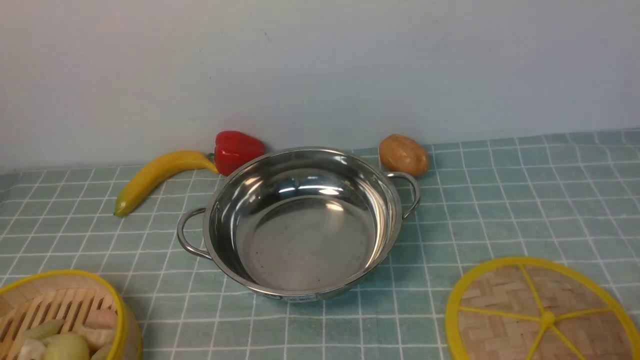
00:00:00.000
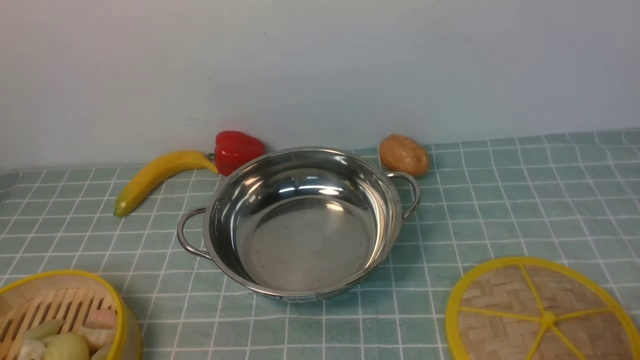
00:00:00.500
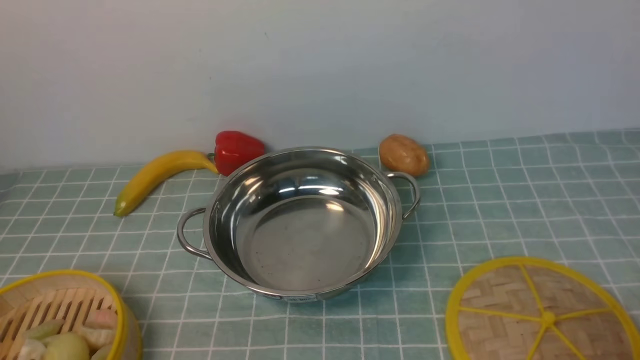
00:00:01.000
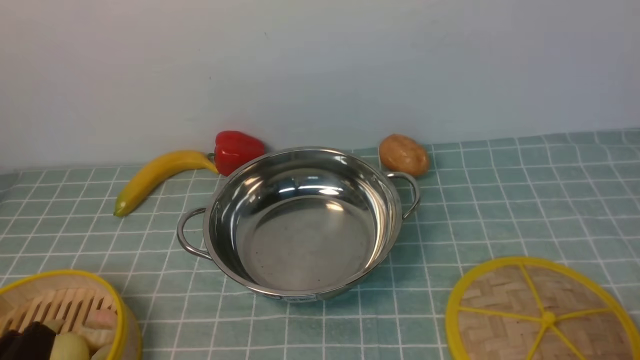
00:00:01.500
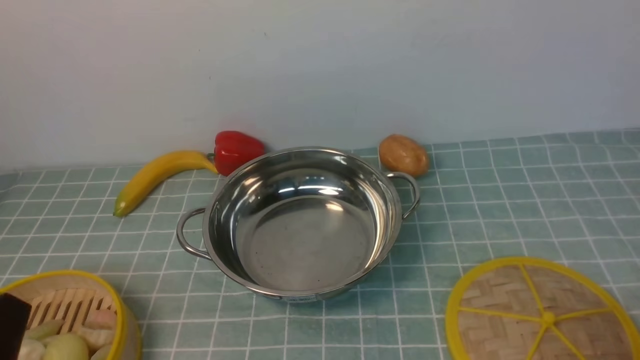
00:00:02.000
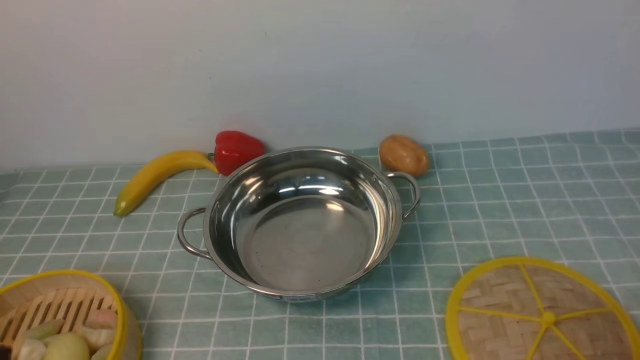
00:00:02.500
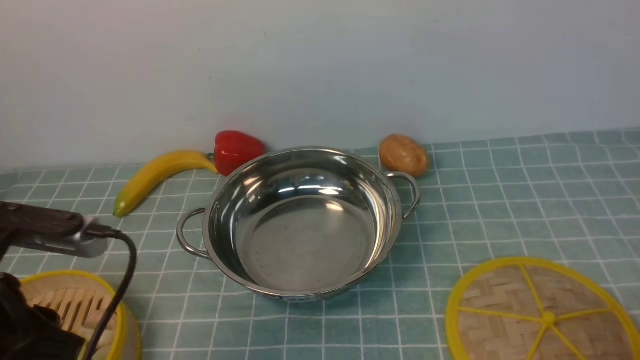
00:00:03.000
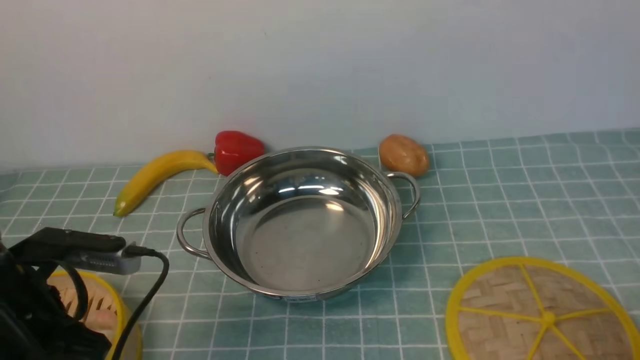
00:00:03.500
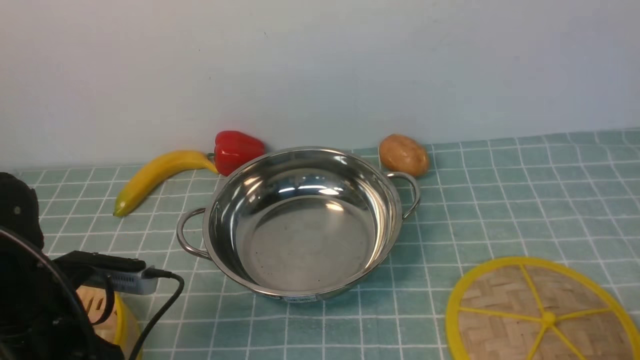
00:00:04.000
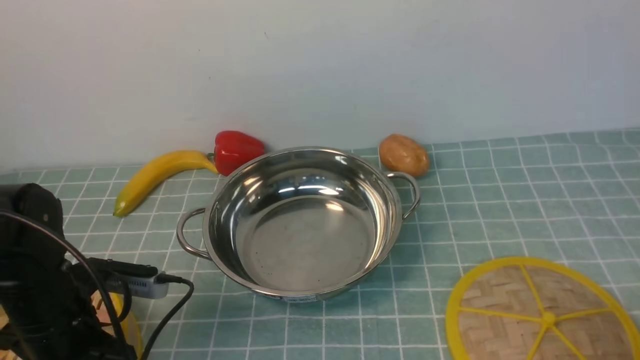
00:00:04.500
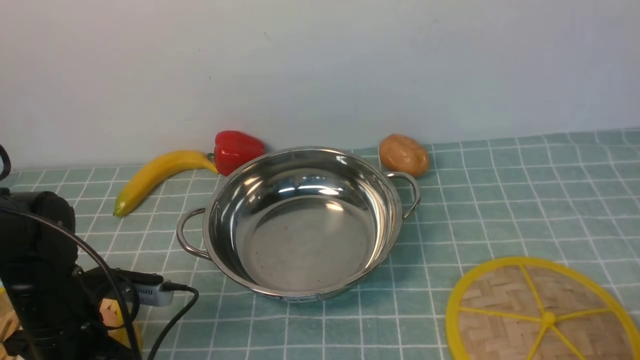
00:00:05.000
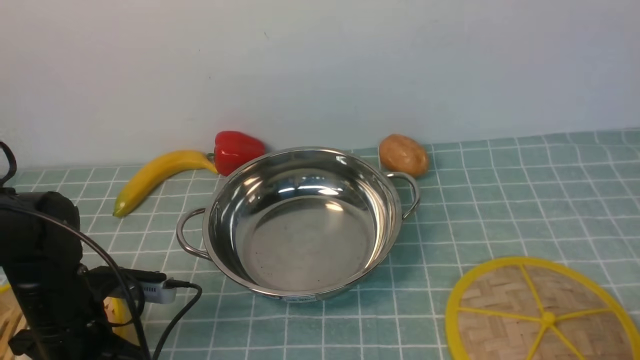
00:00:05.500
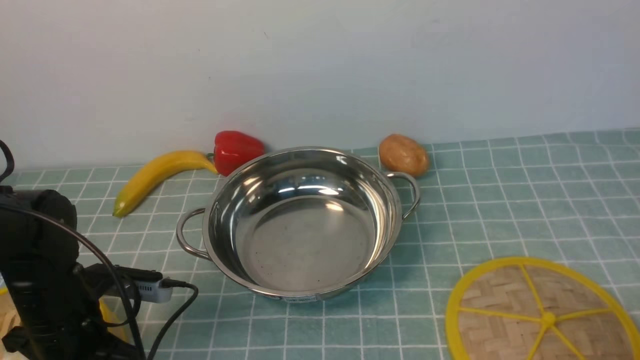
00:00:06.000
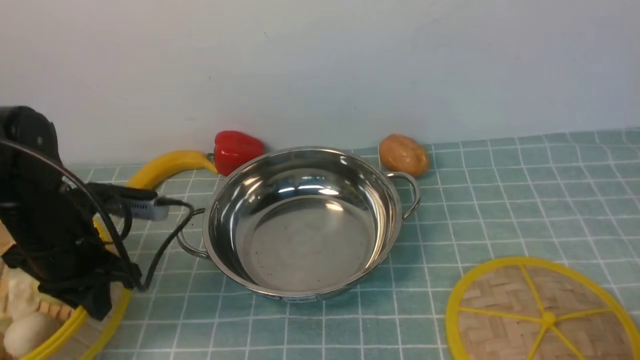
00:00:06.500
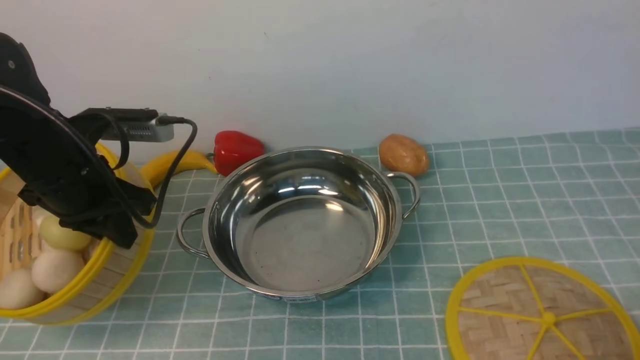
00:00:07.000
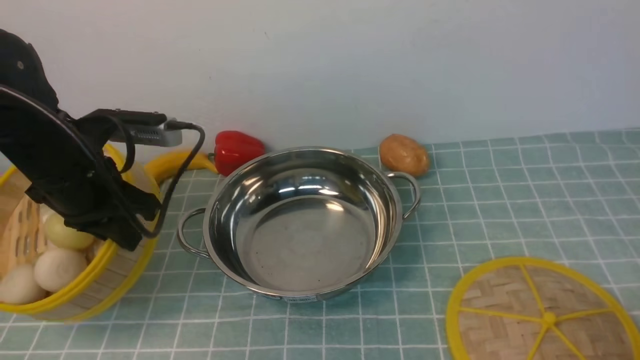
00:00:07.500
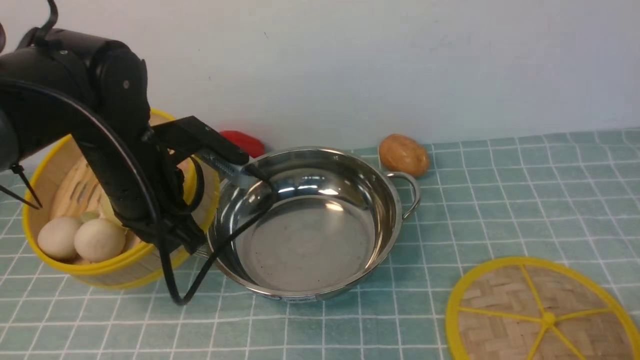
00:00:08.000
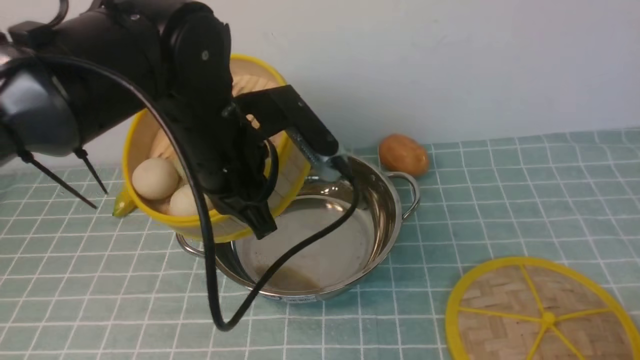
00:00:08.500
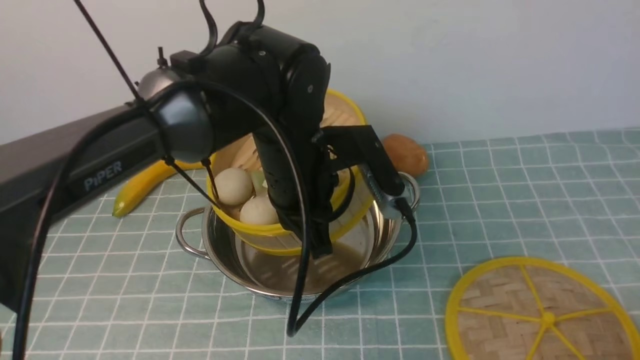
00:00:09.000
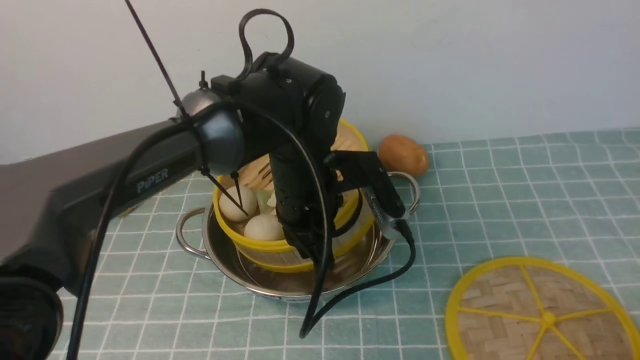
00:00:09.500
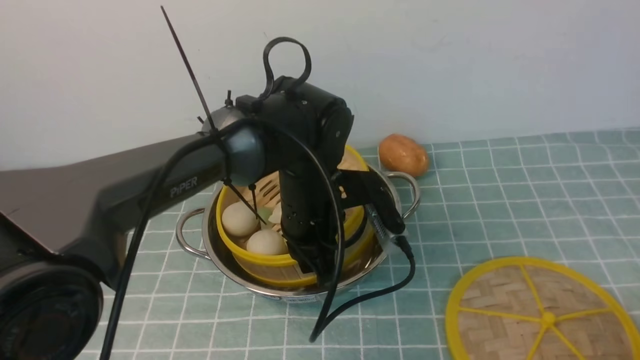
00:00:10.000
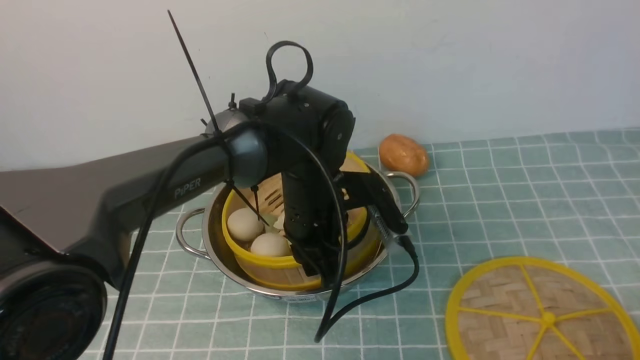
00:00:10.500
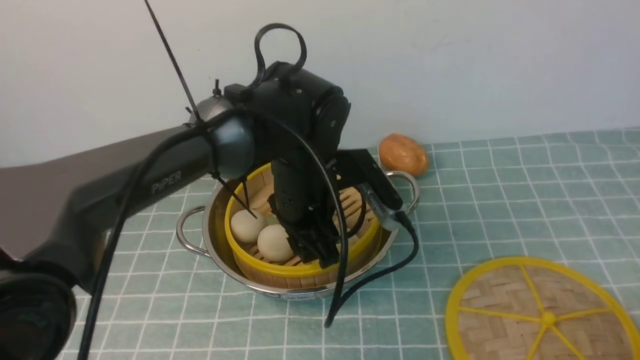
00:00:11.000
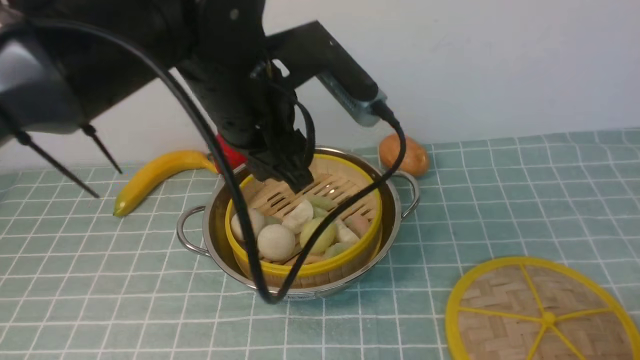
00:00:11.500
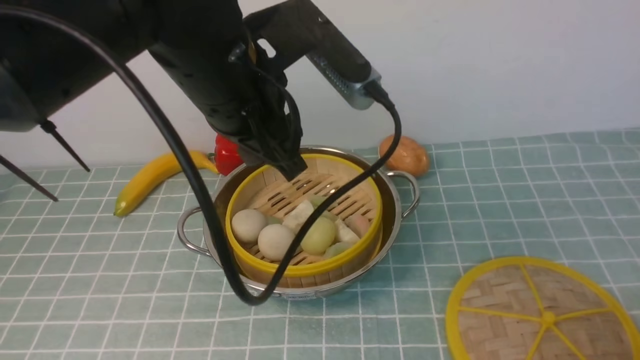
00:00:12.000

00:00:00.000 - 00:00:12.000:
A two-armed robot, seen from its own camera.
Task of the whole recording: place the steamer in the pot on the blue tablecloth, and put the lid on the steamer.
Step, 00:00:00.000 - 00:00:06.500: use the left arm to lift the steamer closest to it.
Step, 00:00:07.000 - 00:00:11.000: use the left arm to put the steamer into the iron steamer pot in the middle.
00:00:02.000 - 00:00:04.000: The left gripper shifts approximately 15 cm forward.
00:00:04.000 - 00:00:06.000: The left gripper heads downward, covering about 5 cm, and closes.
00:00:06.000 - 00:00:08.000: The left gripper travels upward, to the right and forward by about 15 cm.
00:00:08.000 - 00:00:10.000: The left gripper heads to the right and downward, covering about 15 cm.
00:00:10.000 - 00:00:12.000: The left gripper moves upward, approximately 15 cm, and opens up.

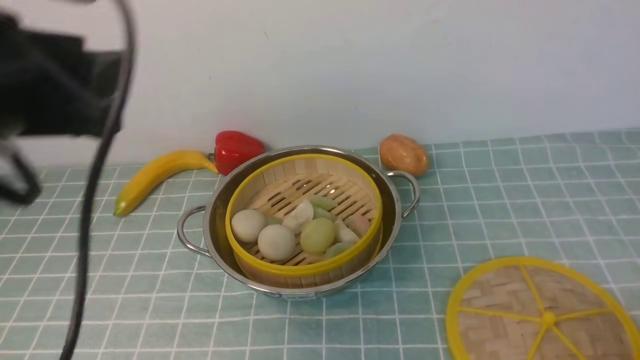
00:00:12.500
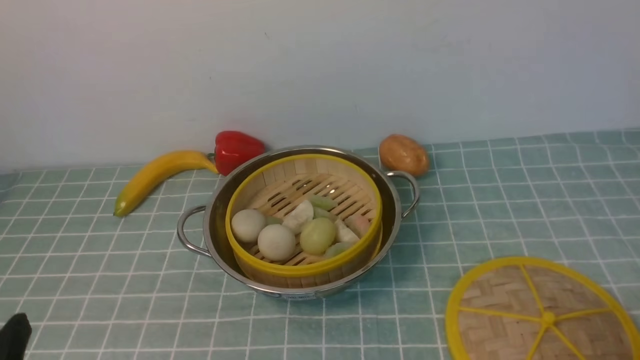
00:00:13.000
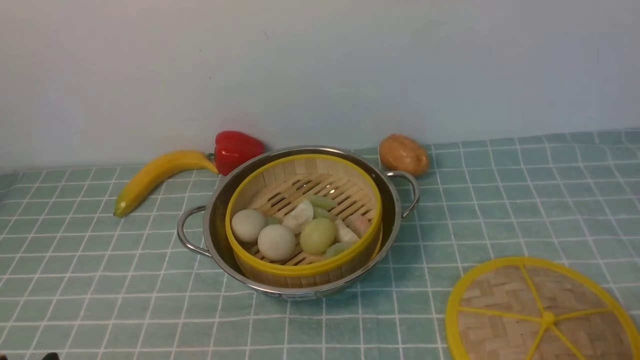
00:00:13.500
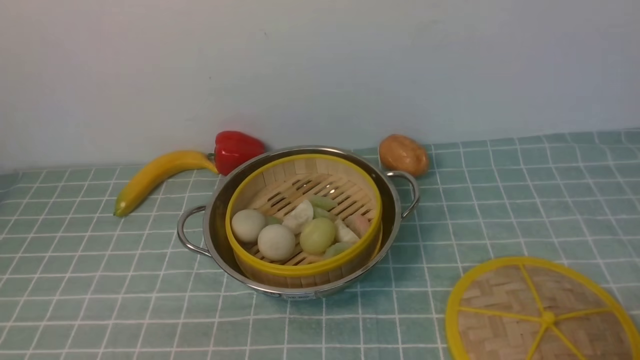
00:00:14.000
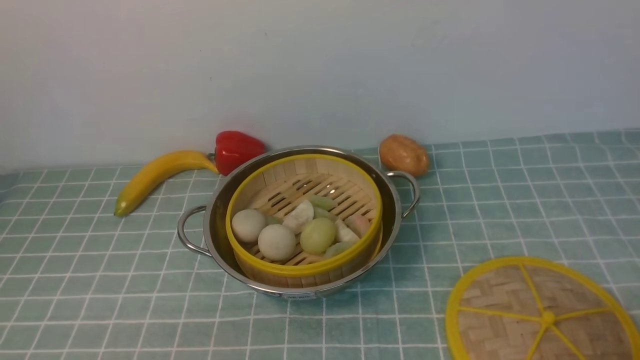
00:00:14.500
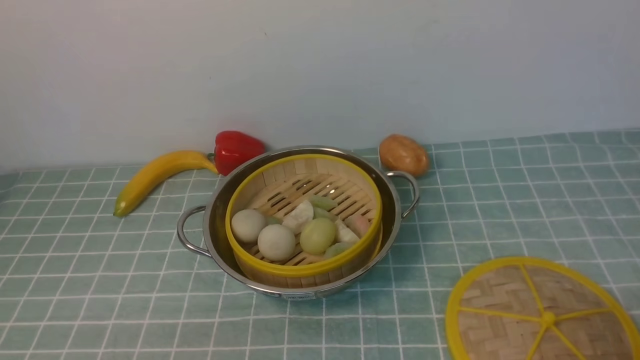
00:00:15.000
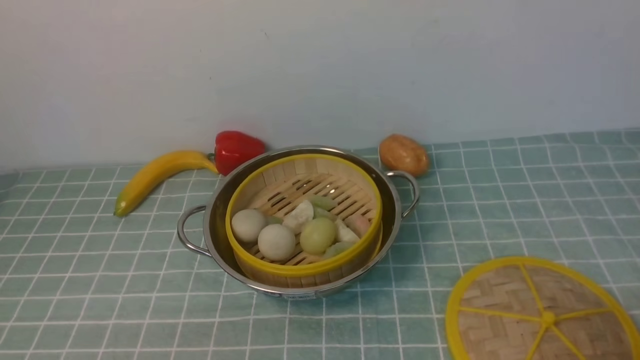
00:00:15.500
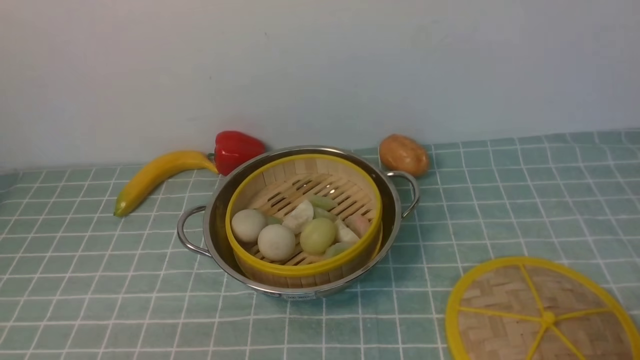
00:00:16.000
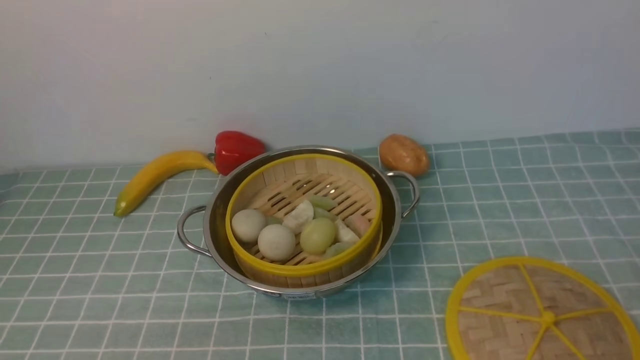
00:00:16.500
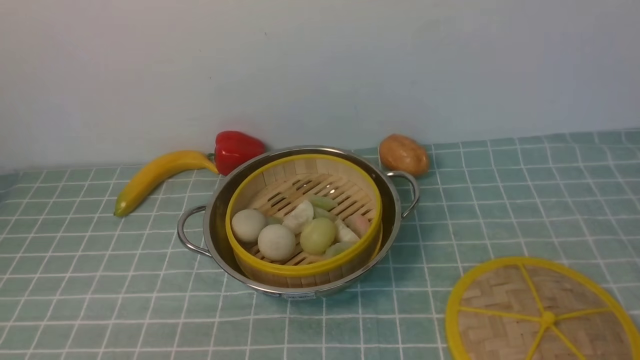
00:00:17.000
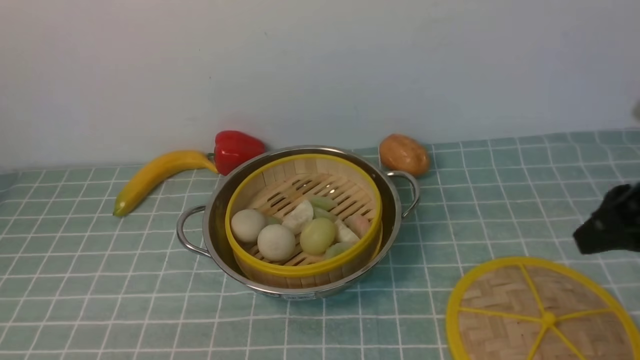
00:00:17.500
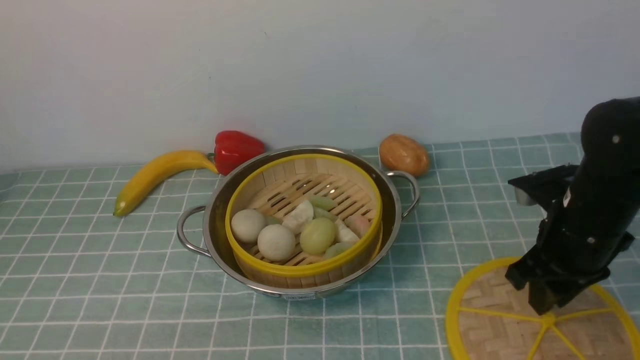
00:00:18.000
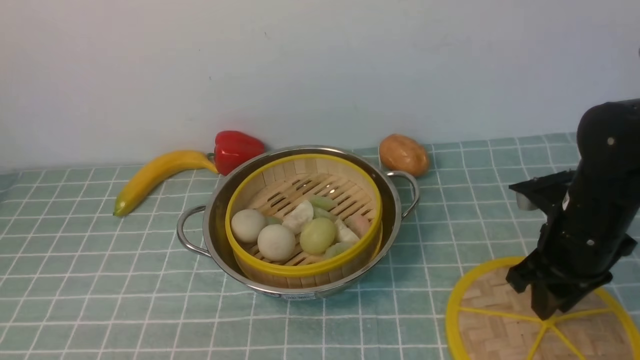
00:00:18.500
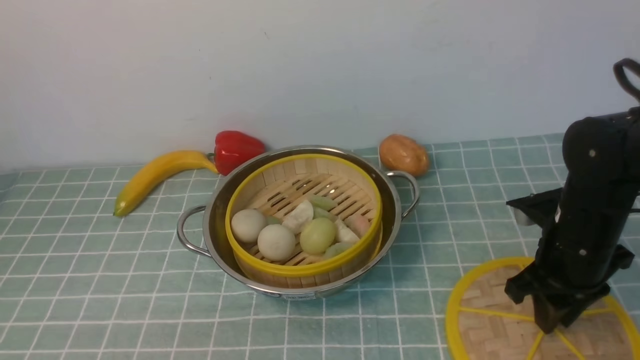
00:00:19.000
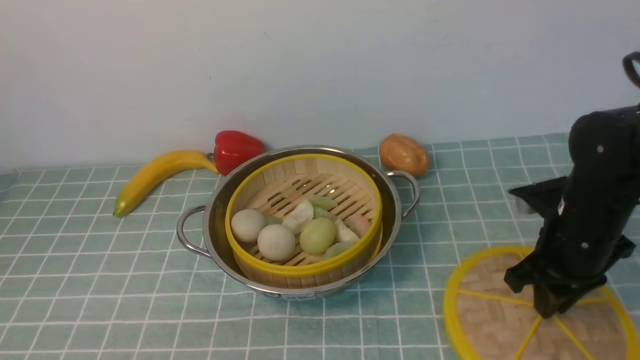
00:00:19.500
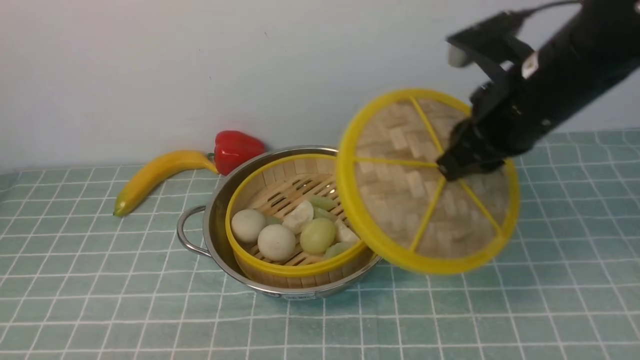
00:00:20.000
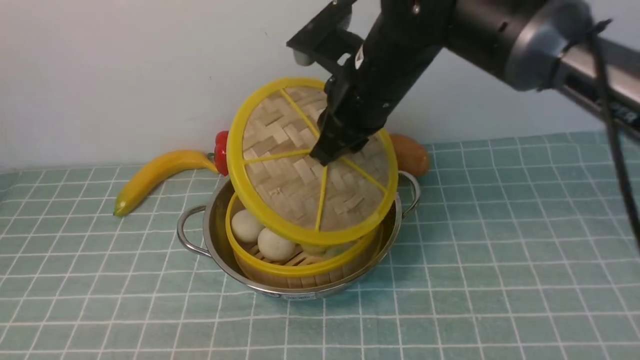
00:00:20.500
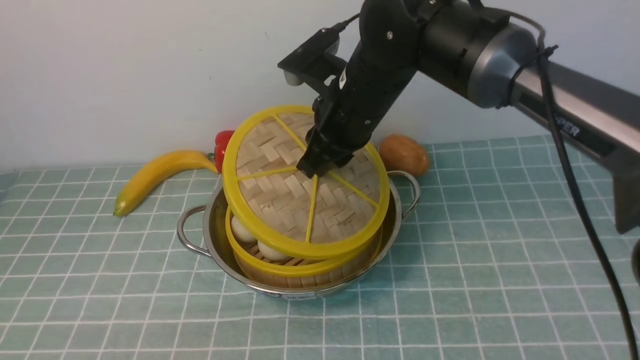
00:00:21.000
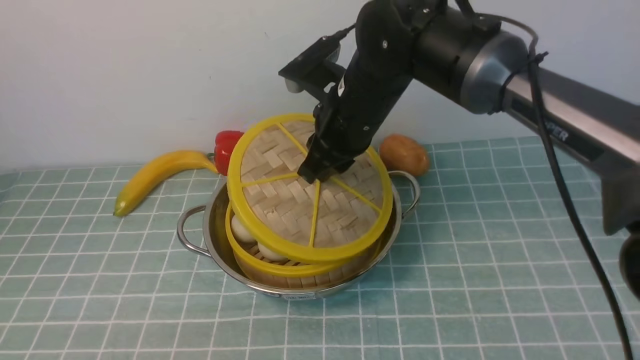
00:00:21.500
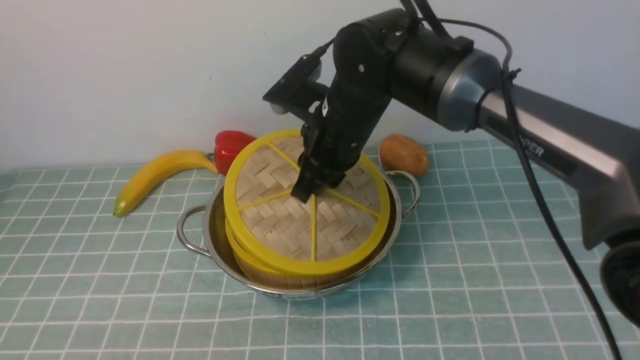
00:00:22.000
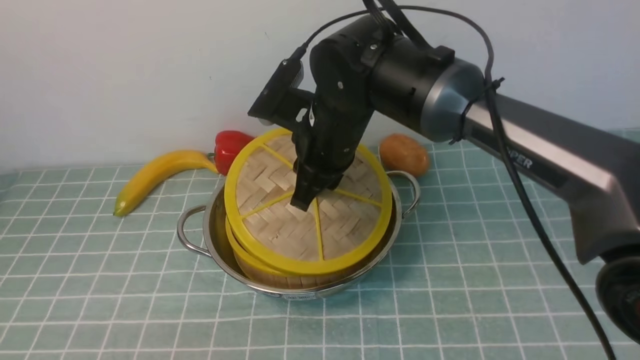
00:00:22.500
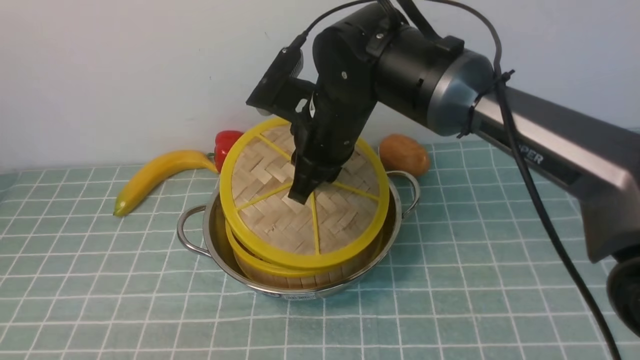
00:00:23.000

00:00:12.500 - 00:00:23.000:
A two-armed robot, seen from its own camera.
Task of the whole recording: place the steamer in the pot on the blue tablecloth, and put the lid on the steamer.
Step, 00:00:12.500 - 00:00:19.500: use the right arm to lift the lid of the steamer.
00:00:12.500 - 00:00:14.500: The left gripper heads downward and backward, covering some 30 cm.
00:00:16.500 - 00:00:19.000: The right gripper goes some 25 cm forward.
00:00:19.000 - 00:00:21.000: The right gripper heads to the left, upward and forward, covering approximately 25 cm.
00:00:21.000 - 00:00:23.000: The grippers make only small movements.
